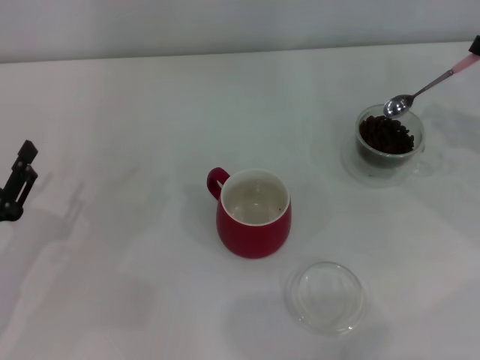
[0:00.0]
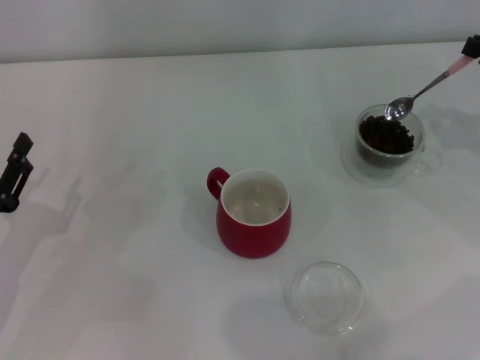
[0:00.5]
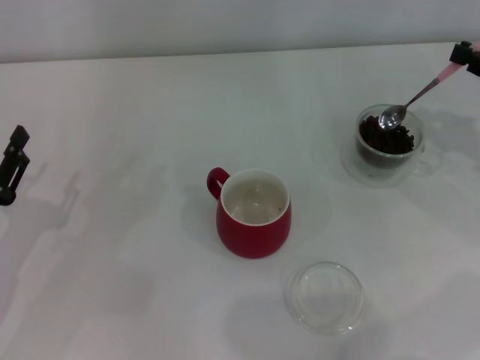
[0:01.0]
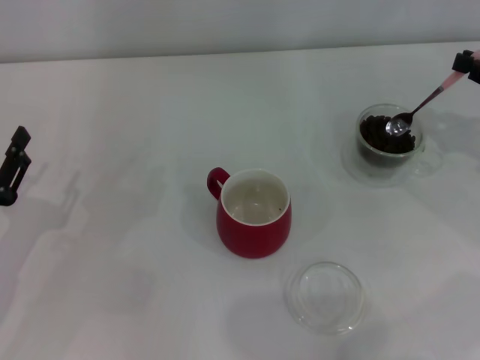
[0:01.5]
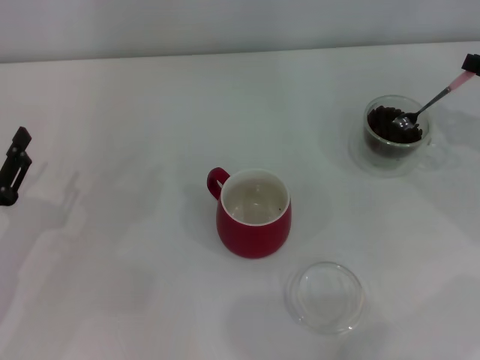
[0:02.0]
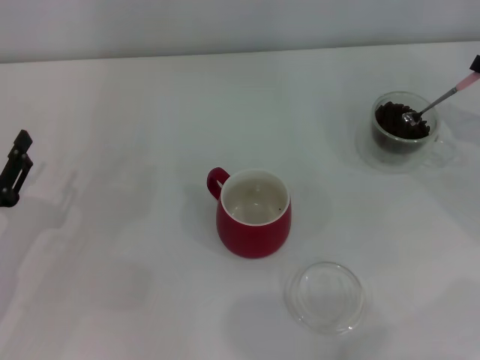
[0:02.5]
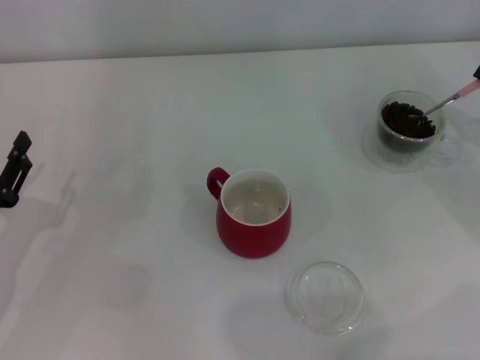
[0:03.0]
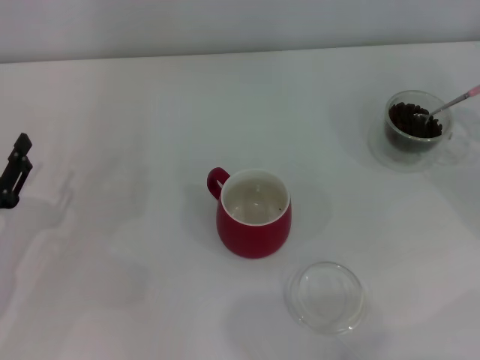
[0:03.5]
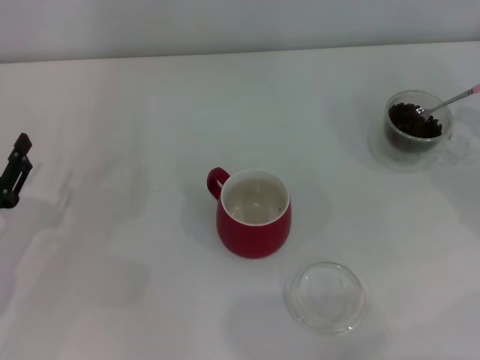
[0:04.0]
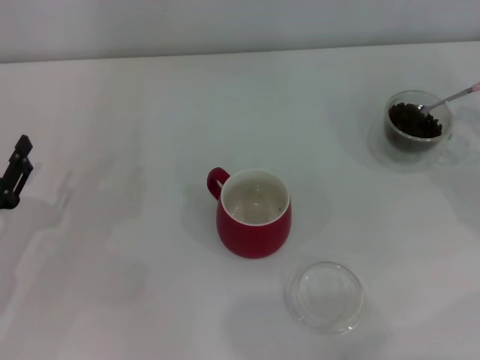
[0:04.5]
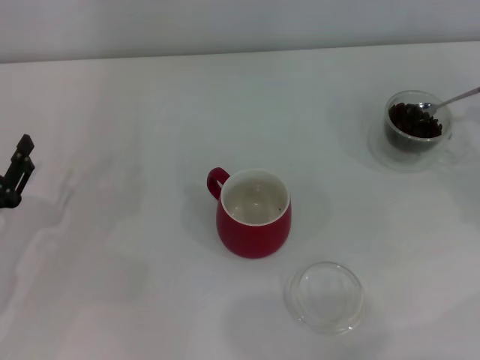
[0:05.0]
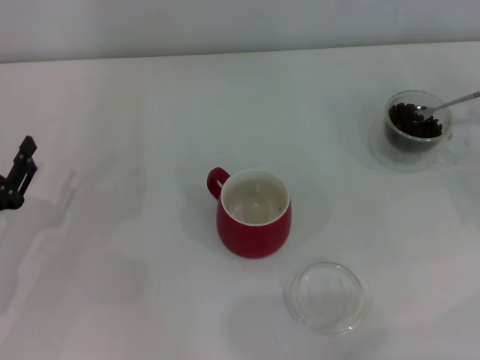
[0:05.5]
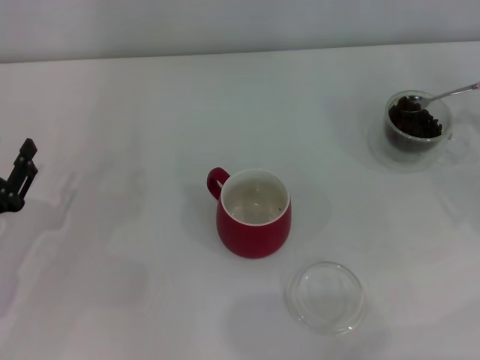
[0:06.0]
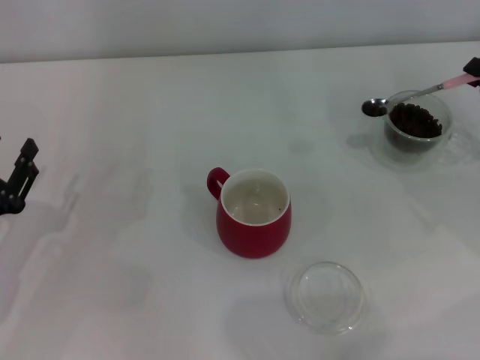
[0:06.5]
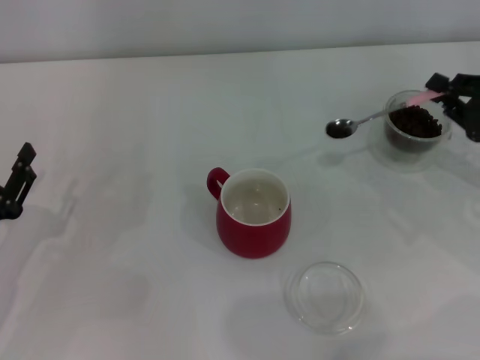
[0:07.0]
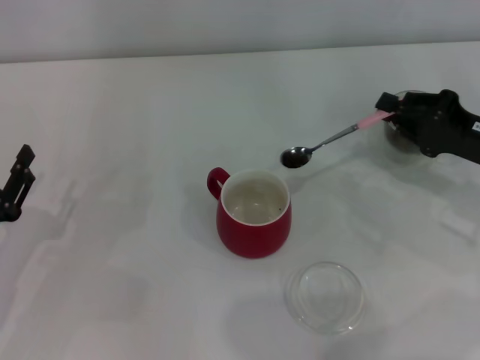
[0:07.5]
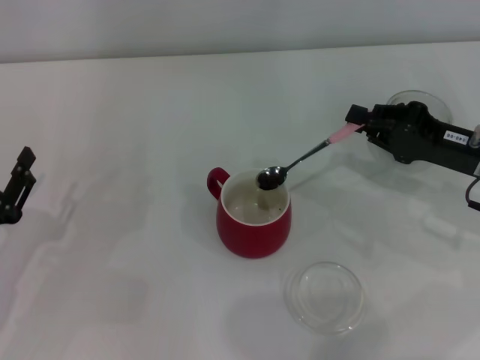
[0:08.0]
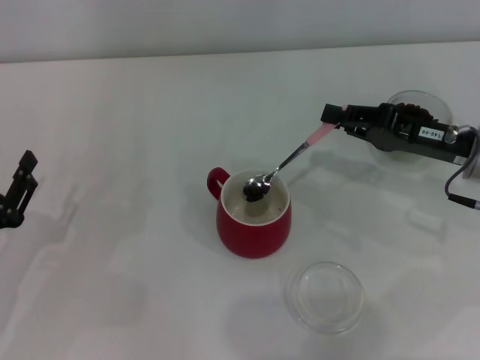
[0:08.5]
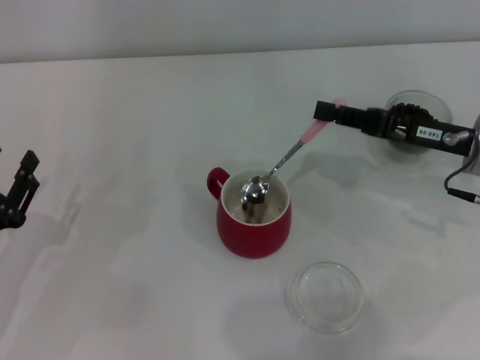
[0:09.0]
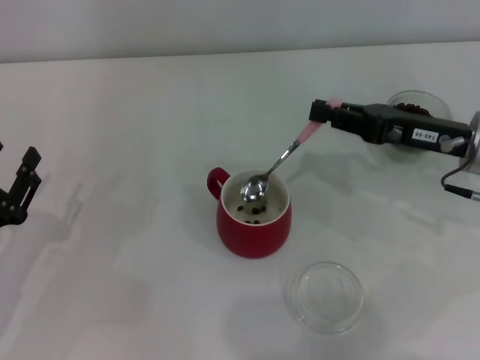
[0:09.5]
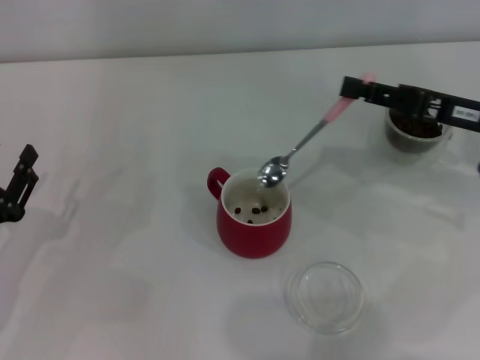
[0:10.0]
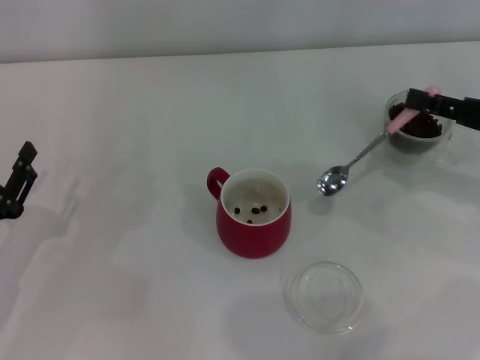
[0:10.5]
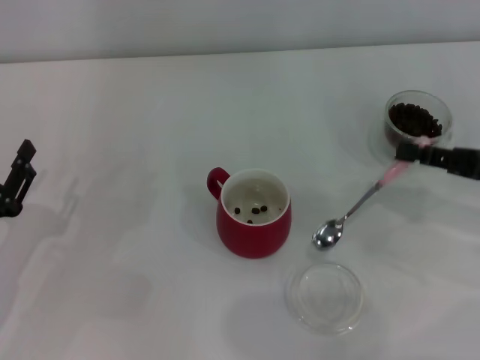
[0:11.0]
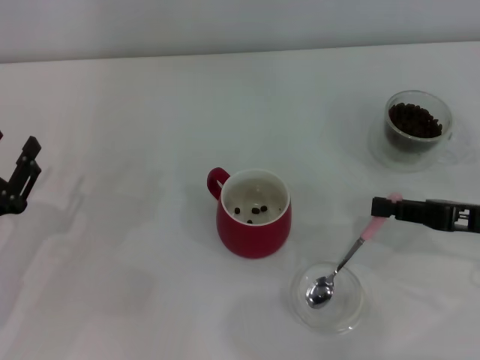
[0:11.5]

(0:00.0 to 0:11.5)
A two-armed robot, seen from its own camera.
Task of the whole recording: Use a pink spoon to take out the coffee beans from the glass and pour them into the red cup.
Step, 0:00.0 - 0:09.5: Scoop a spoonful of beans into the cup with the right gripper.
0:00.0 - 0:02.0: The grippers stay close to where they were, moving slightly.
0:06.0 - 0:07.5: The right gripper is displaced to the left by approximately 10 cm.
0:07.5 - 0:09.5: The right gripper ends up some 5 cm from where it was.
0:09.5 - 0:11.5: The right gripper travels backward and to the right by about 10 cm.

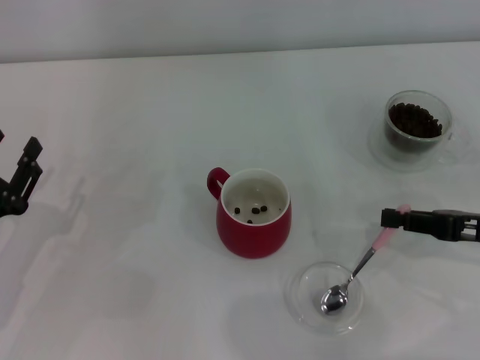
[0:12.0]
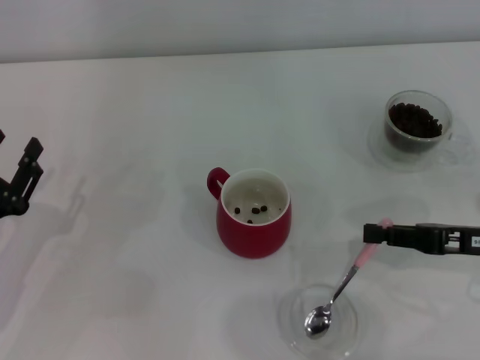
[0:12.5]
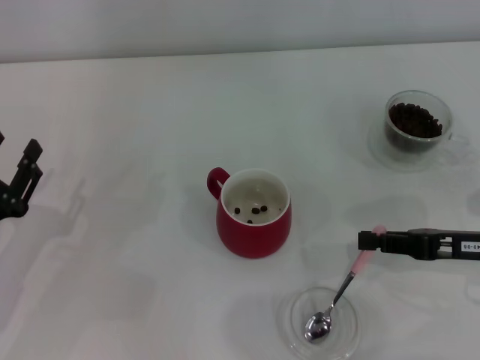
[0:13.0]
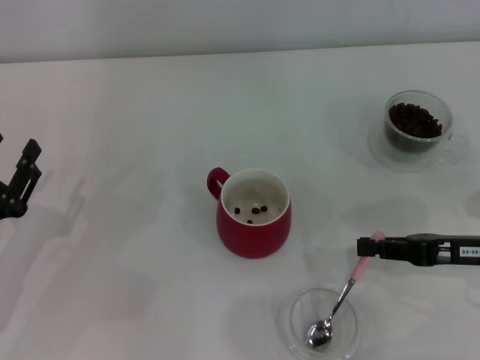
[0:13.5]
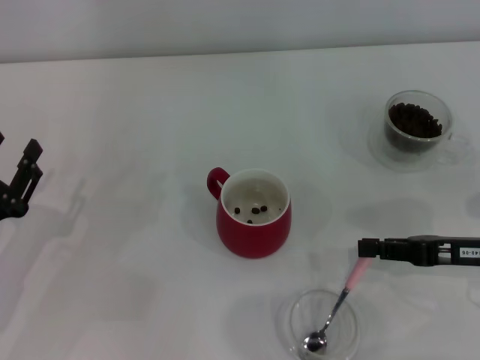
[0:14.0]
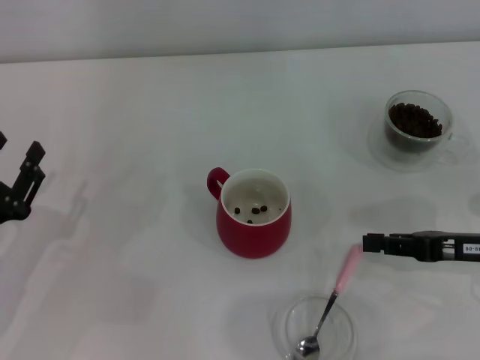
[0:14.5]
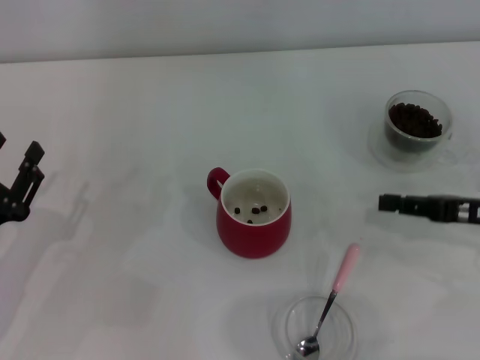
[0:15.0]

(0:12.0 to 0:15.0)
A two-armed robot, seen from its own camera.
Task of the whole recording: Use a pink spoon to take out the coffee beans from the glass and pour them into the red cup.
Step, 0:12.0 - 0:14.5: Place the spoon back in its original place with the right gripper.
0:12.0 - 0:15.0: The grippers move only a little.
